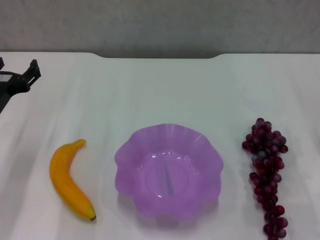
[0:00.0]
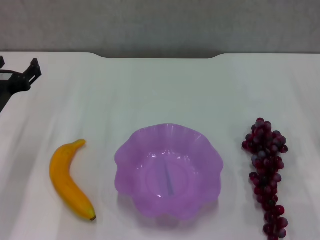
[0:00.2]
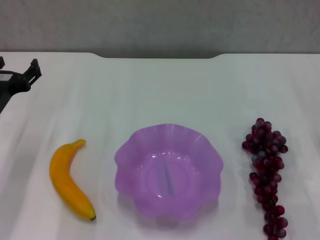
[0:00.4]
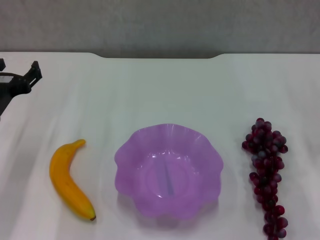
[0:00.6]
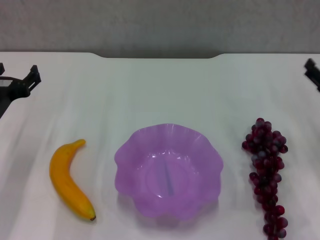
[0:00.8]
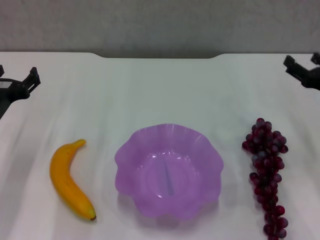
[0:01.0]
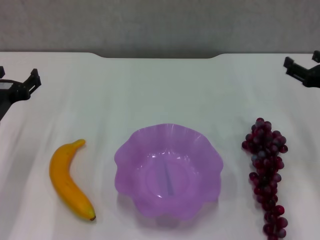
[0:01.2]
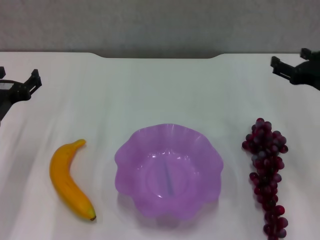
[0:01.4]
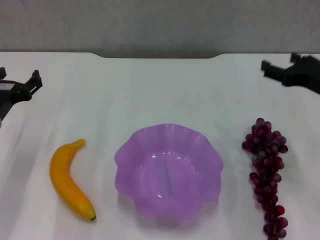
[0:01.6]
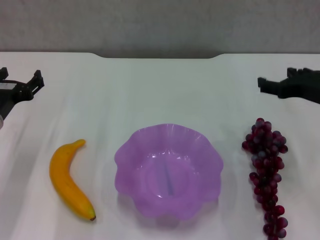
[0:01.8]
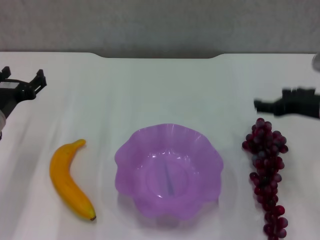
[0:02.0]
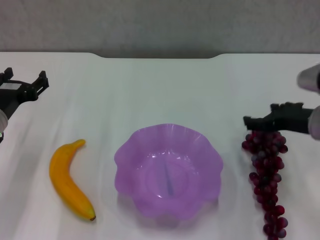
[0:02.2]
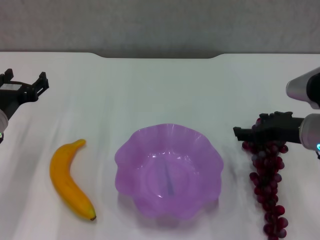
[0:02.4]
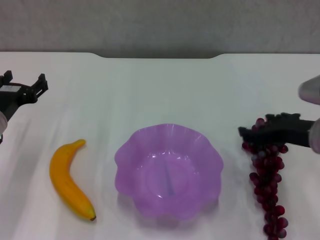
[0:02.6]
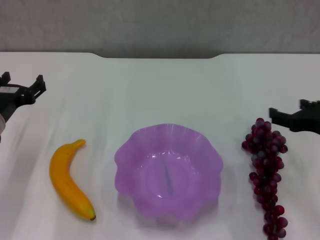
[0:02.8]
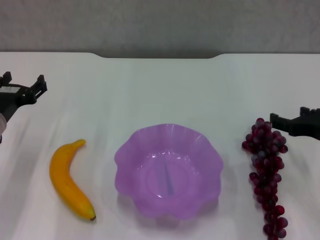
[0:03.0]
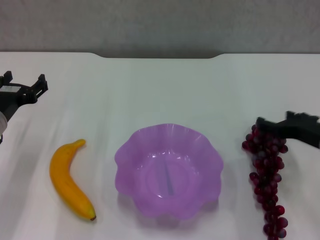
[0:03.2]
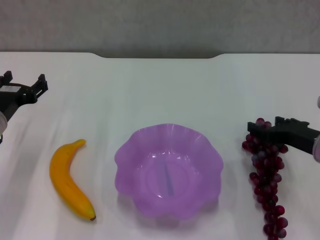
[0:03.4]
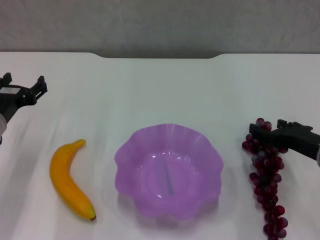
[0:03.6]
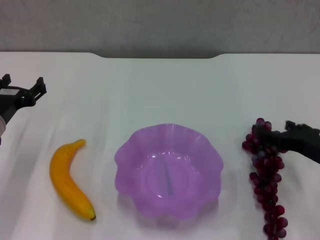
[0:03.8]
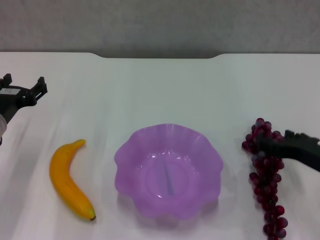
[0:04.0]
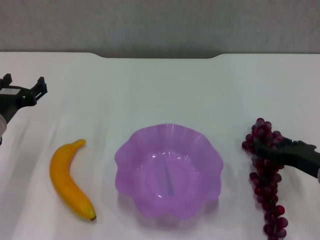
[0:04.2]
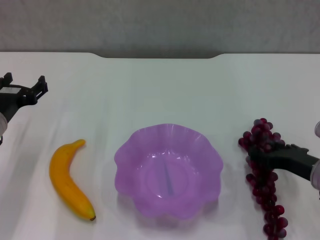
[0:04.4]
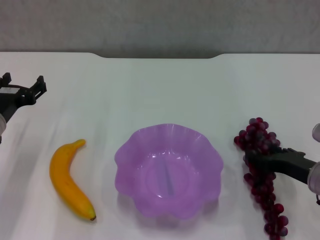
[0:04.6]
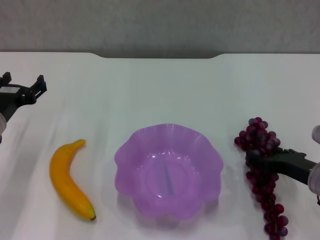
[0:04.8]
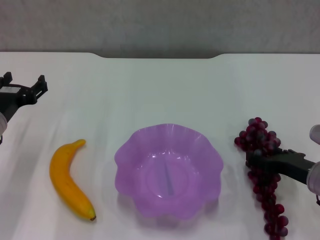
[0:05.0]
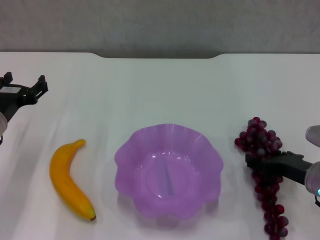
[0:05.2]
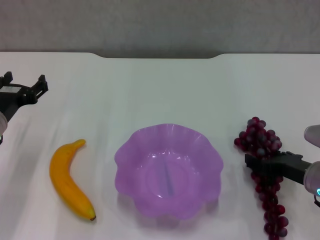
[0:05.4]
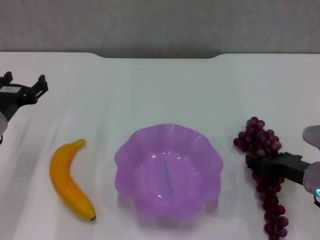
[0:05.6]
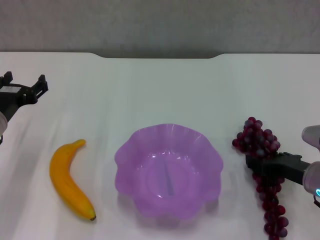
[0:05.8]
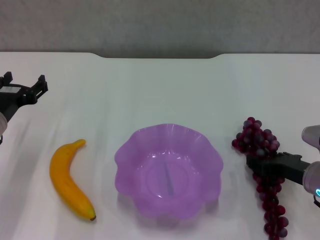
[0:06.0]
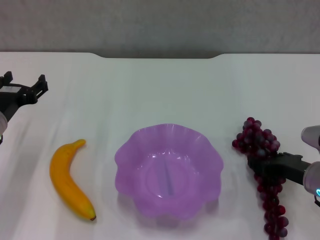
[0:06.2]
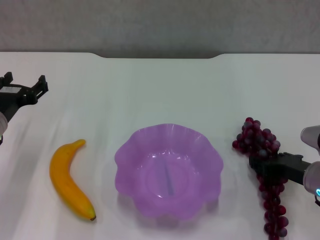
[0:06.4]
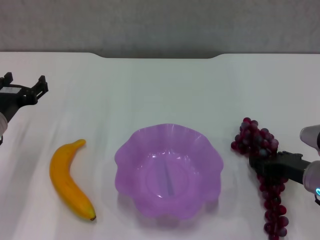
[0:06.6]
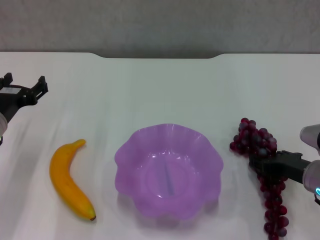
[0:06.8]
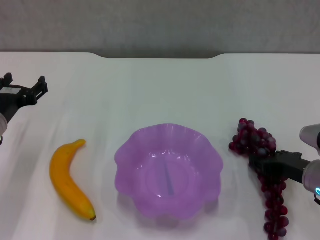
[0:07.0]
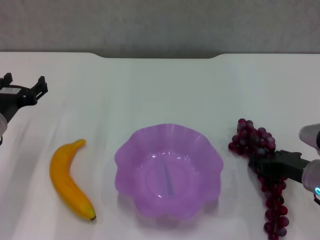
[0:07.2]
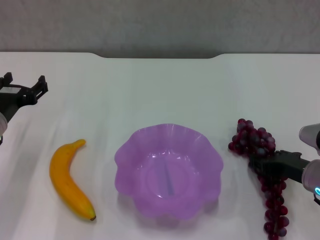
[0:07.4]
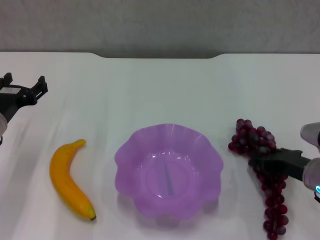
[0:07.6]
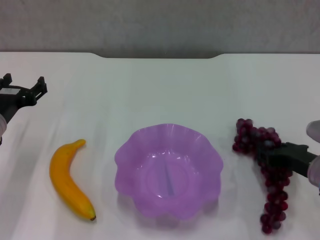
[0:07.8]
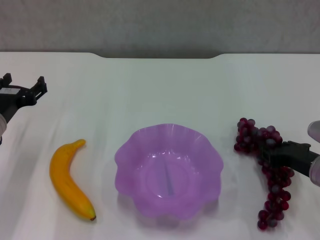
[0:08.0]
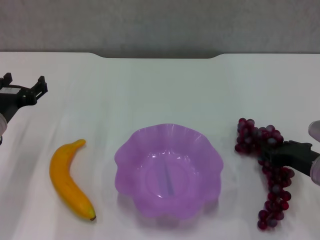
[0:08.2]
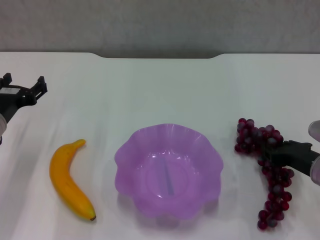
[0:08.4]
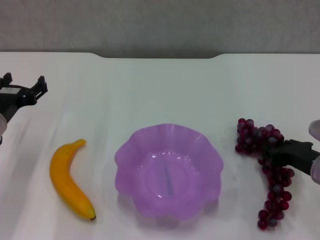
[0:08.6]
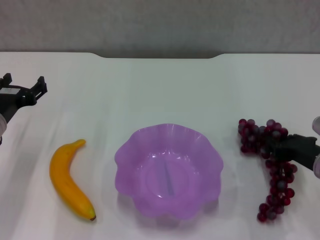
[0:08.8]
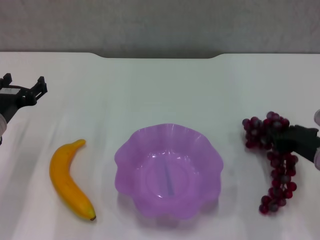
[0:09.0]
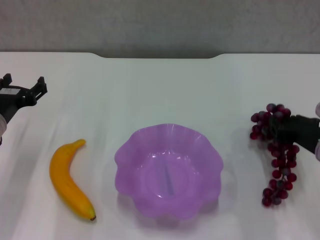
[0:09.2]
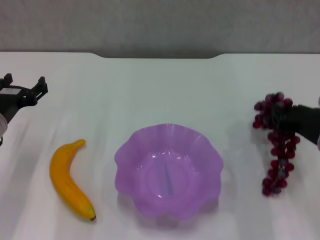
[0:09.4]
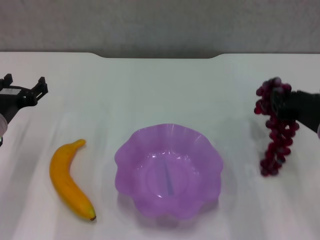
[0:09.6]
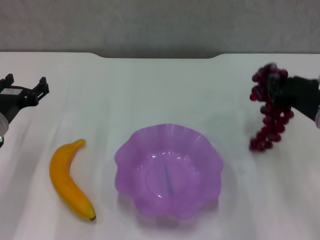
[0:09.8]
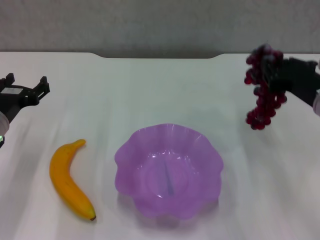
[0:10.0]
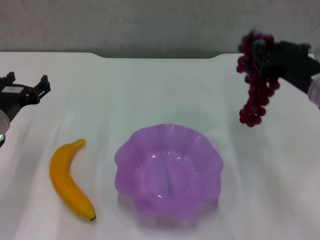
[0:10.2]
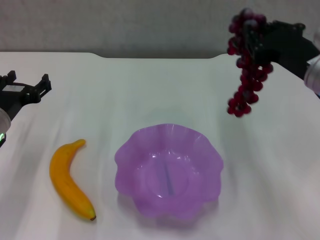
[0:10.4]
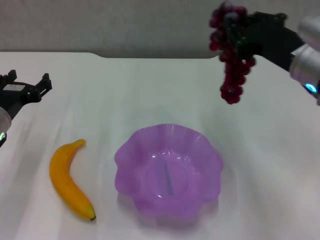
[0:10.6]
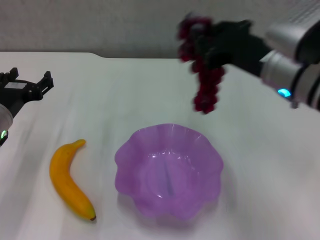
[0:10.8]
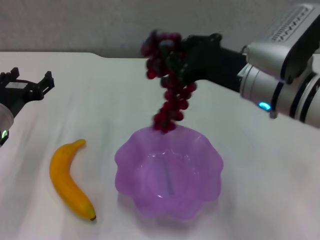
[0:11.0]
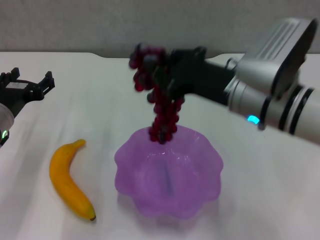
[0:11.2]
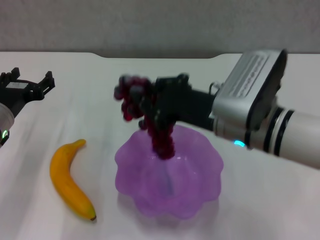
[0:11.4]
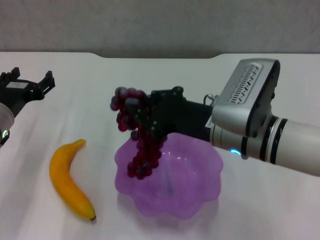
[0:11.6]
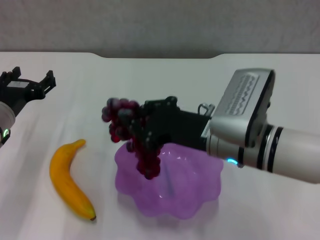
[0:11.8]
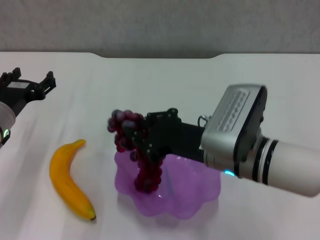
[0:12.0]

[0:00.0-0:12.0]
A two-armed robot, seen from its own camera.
Step, 0:00.0 to 0:06.0: Grasp the grape with right gripper.
0:00.0 to 0:01.6: The right gripper moves upward and to the left, approximately 10 cm.
0:01.6 to 0:03.0: The right gripper changes place by roughly 5 cm.
0:03.0 to 0:04.4: The right gripper travels downward by about 5 cm.
0:04.4 to 0:06.0: The grippers make only small movements.
0:06.0 to 0:07.6: The right gripper closes up.
0:07.6 to 0:09.0: There are only small adjustments of the grippers.
0:09.0 to 0:10.4: The right gripper travels upward and to the left by about 15 cm.
0:10.4 to 0:12.0: The right gripper travels to the left and downward by roughly 15 cm.

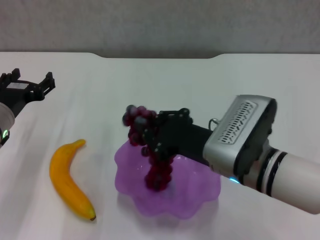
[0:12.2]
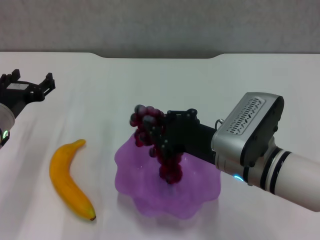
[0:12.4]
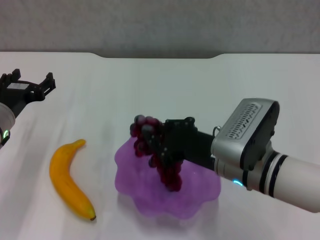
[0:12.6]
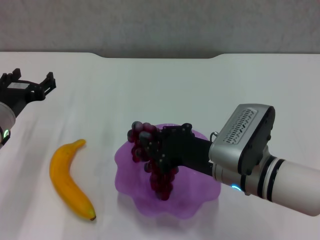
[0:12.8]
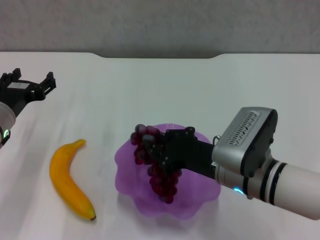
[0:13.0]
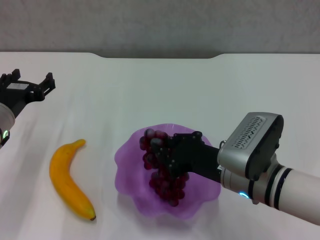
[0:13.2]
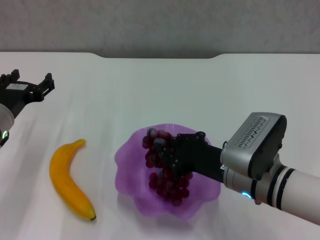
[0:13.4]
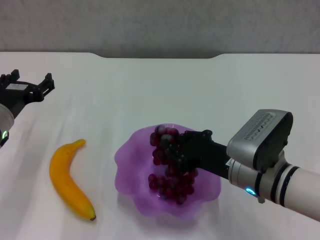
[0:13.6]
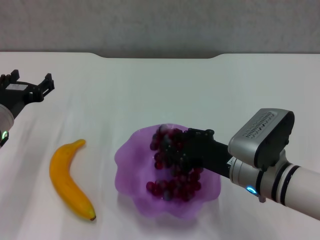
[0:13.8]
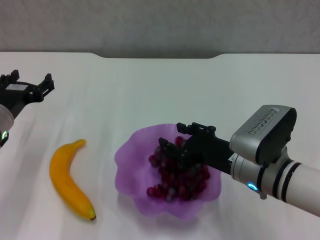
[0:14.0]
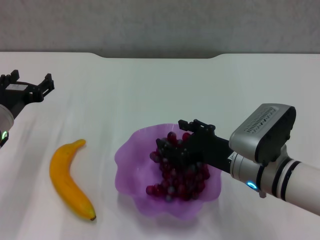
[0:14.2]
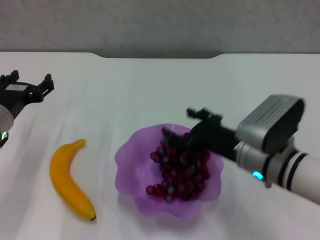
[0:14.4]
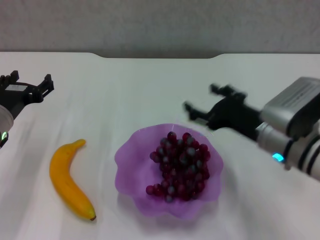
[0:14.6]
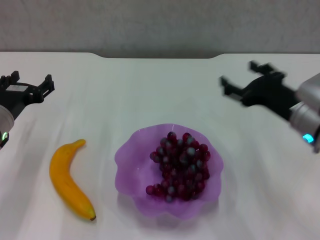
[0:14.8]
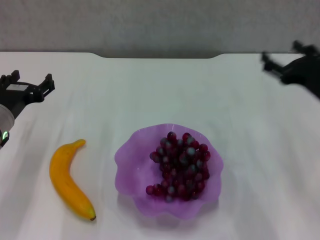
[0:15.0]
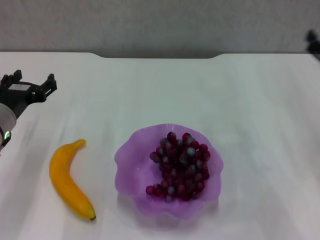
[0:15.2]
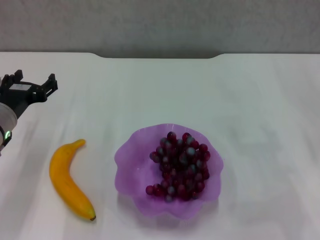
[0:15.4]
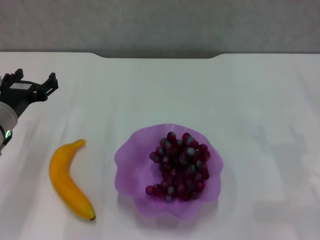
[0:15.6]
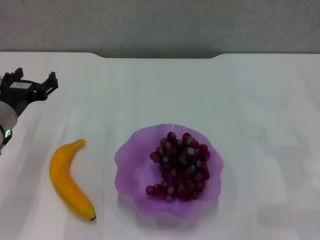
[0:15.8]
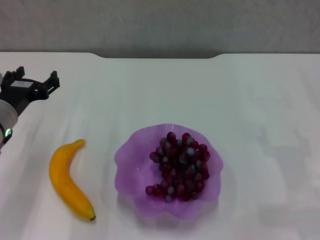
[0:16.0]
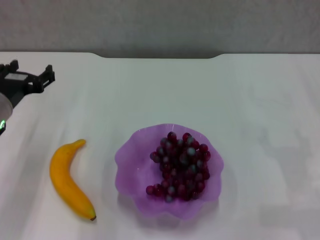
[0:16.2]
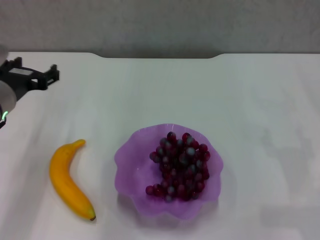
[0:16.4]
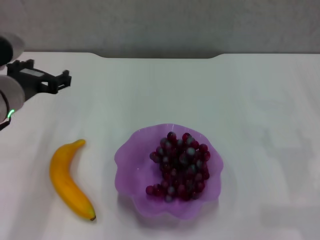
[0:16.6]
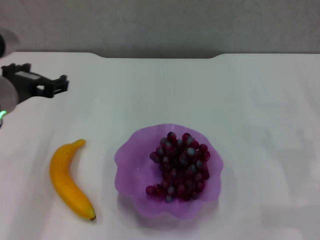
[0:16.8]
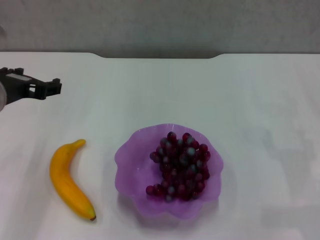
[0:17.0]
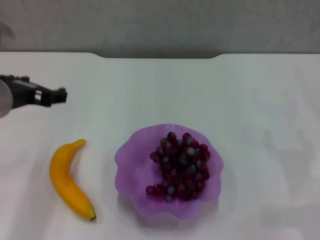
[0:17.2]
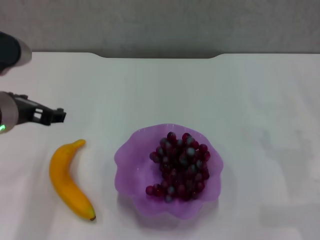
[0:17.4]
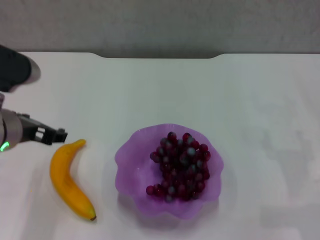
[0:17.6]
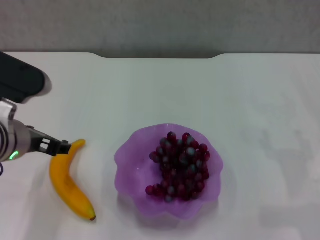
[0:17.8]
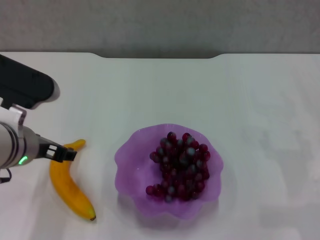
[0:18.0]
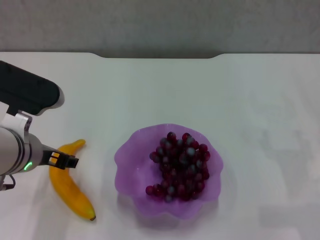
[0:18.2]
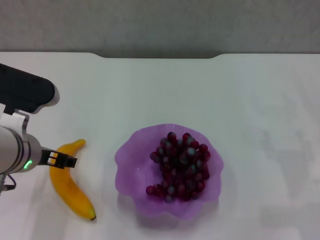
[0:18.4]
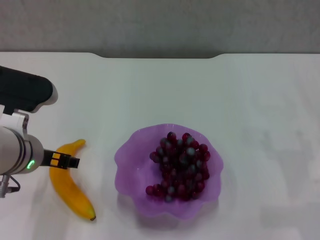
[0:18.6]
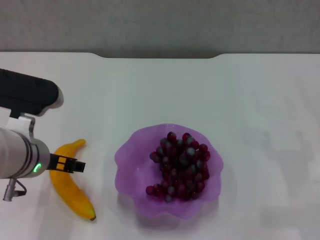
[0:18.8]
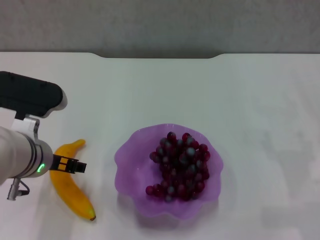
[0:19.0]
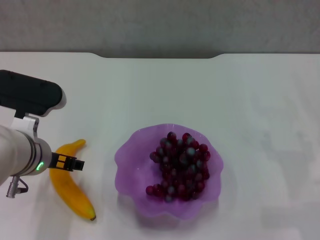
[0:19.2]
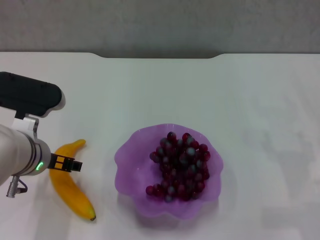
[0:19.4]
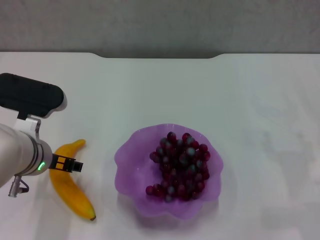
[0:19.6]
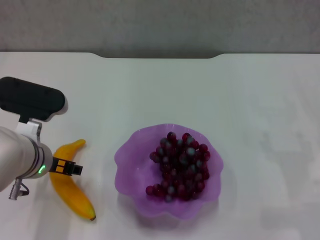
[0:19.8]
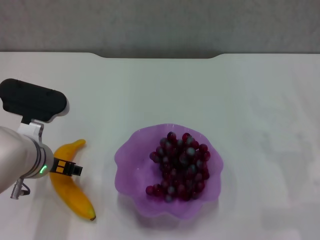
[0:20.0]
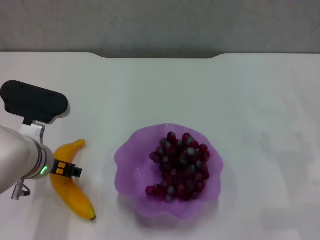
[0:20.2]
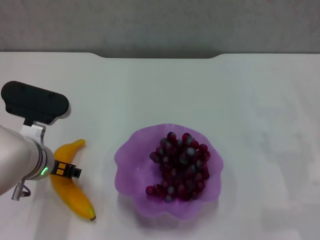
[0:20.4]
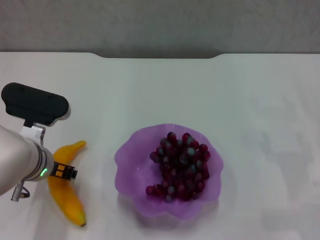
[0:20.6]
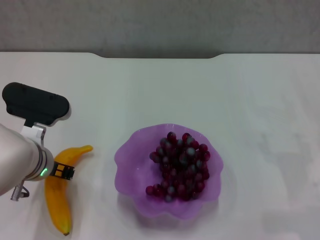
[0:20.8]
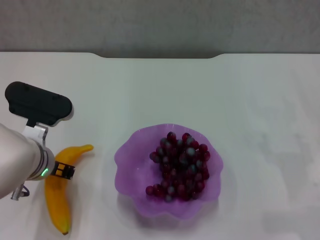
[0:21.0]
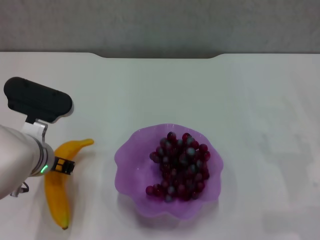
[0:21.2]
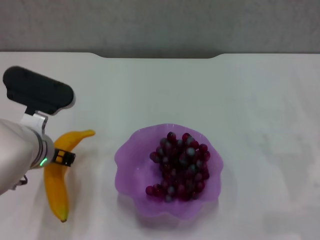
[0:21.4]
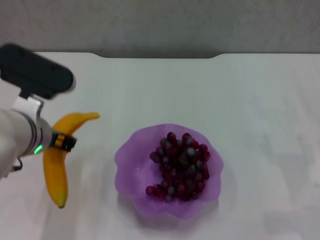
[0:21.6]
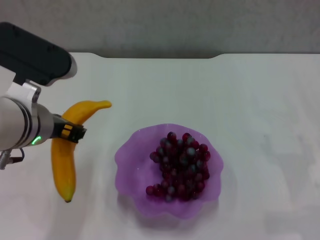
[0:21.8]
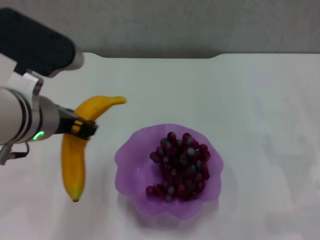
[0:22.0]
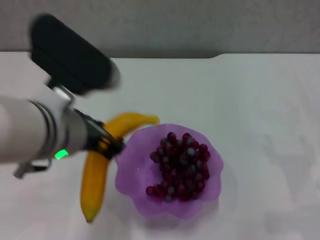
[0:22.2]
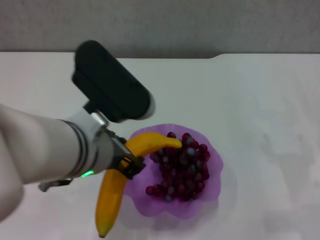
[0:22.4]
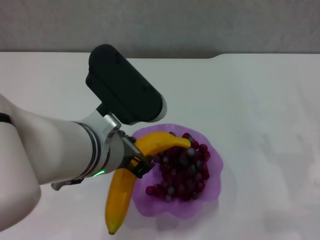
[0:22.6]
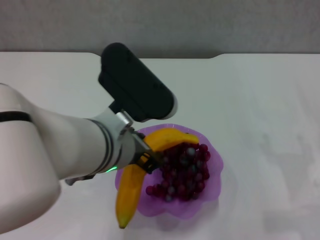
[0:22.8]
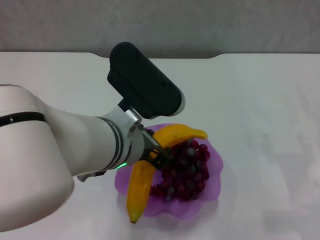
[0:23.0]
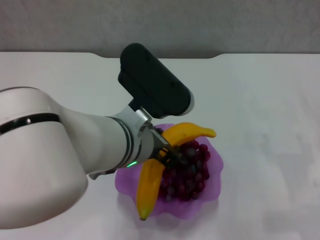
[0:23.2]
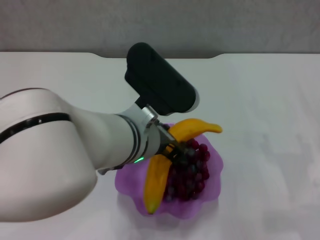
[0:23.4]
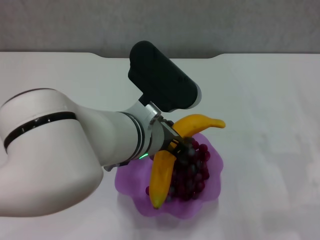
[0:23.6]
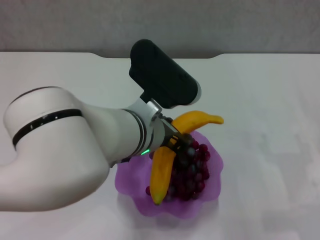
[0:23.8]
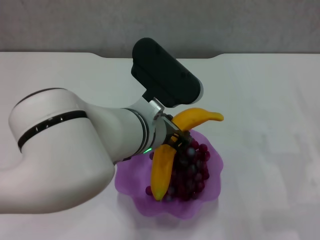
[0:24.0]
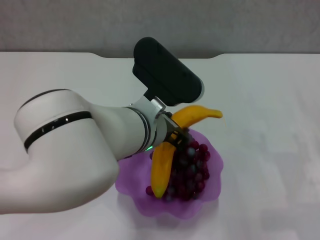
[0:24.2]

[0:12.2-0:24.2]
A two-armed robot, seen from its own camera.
Step, 0:12.2 to 0:14.4: Place the grape in the purple plate with right gripper.
Step, 0:14.8 to 0:20.8: Grasp the banana with left gripper.
0:12.2 to 0:13.8: The right gripper ends up some 5 cm from where it was.
0:13.8 to 0:15.2: The right gripper is displaced to the right by some 15 cm, and opens its fingers.
0:15.2 to 0:16.6: The right gripper moves to the right, about 5 cm. The left gripper is displaced upward by approximately 10 cm.
0:16.6 to 0:18.2: The left gripper ends up approximately 5 cm from where it was.
0:18.2 to 0:19.8: The grippers move only a little.
0:19.8 to 0:21.2: The left gripper closes.
0:21.2 to 0:22.6: The left gripper moves to the right, upward and backward, approximately 15 cm.
0:22.6 to 0:24.2: The left gripper is displaced forward by about 5 cm.
